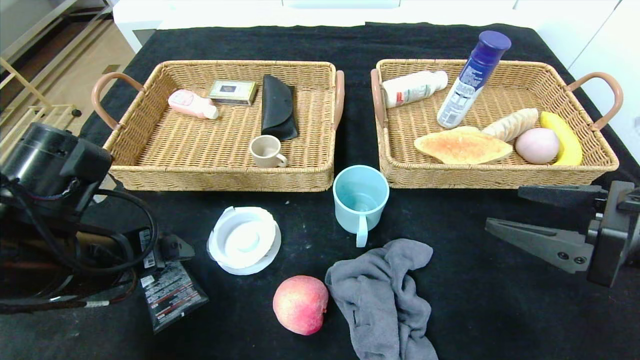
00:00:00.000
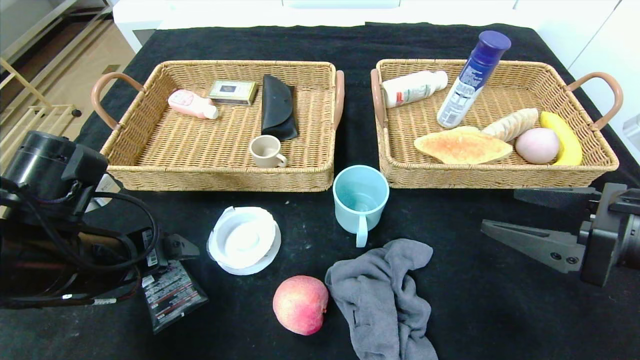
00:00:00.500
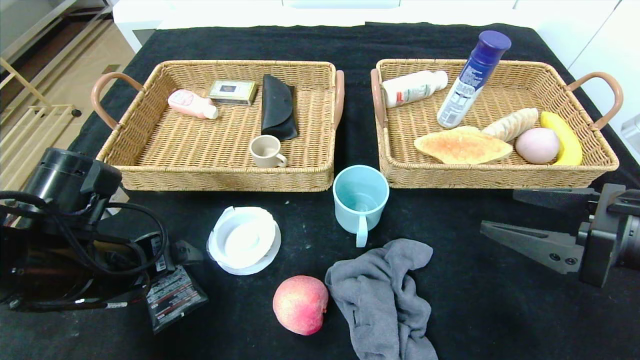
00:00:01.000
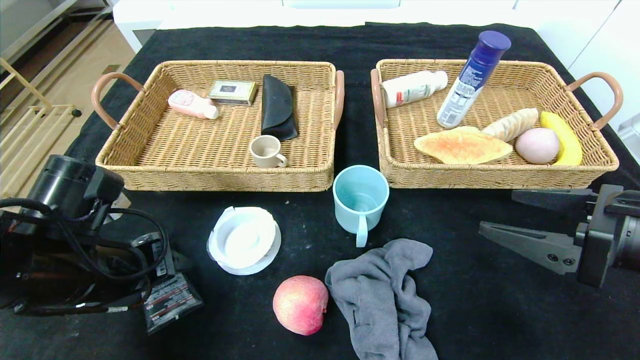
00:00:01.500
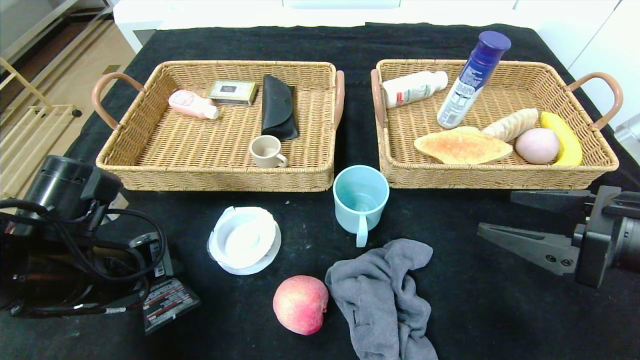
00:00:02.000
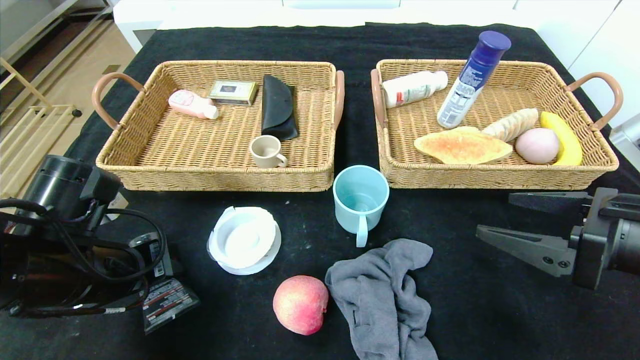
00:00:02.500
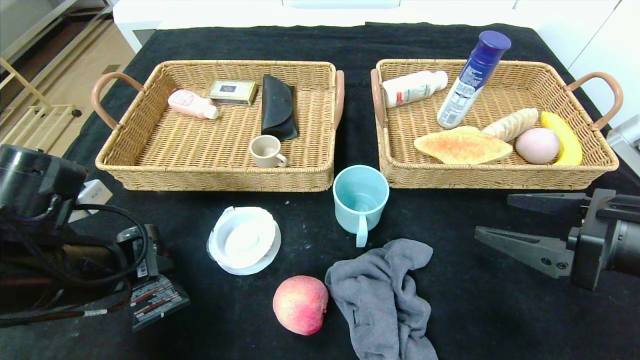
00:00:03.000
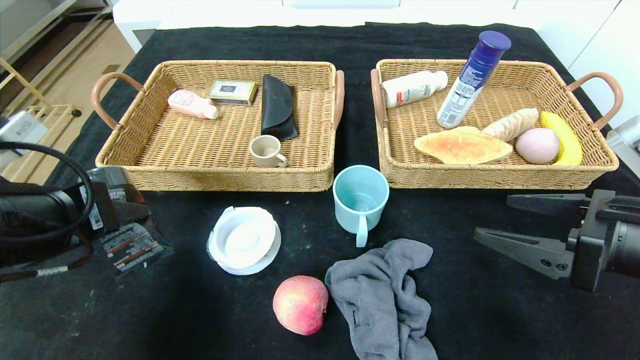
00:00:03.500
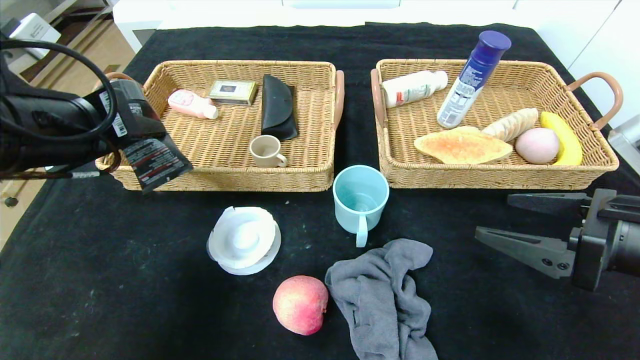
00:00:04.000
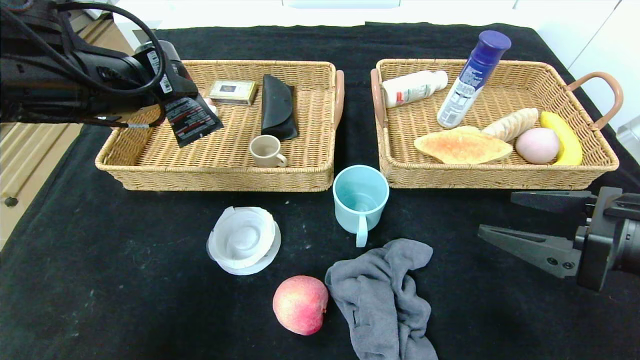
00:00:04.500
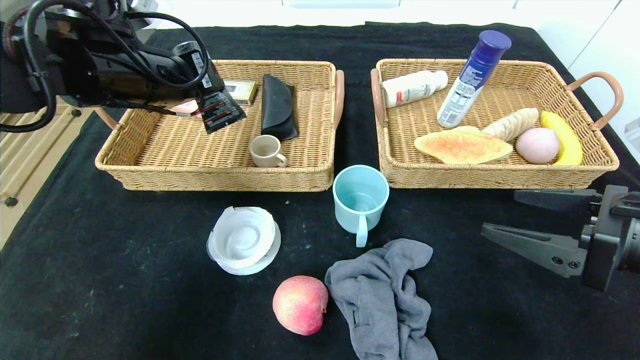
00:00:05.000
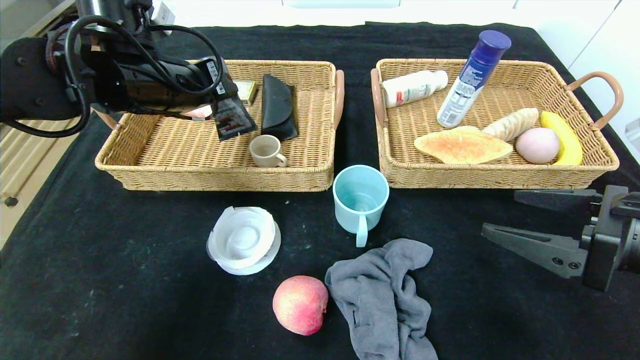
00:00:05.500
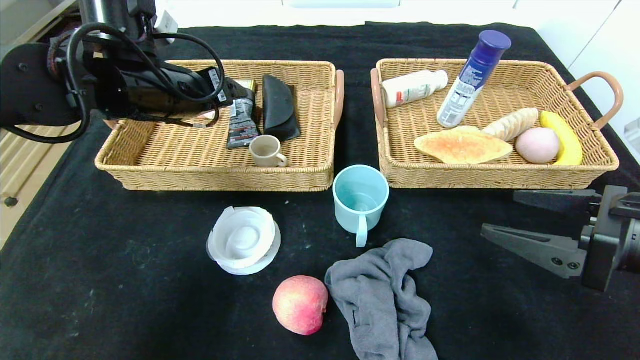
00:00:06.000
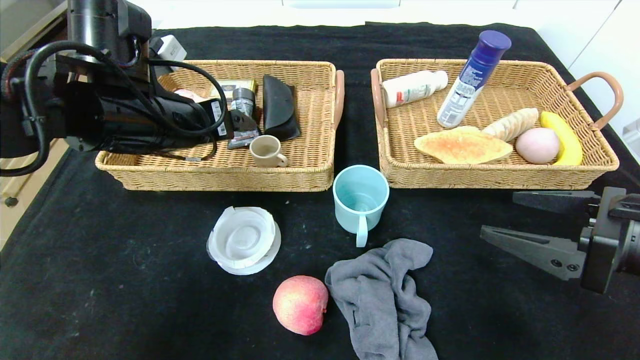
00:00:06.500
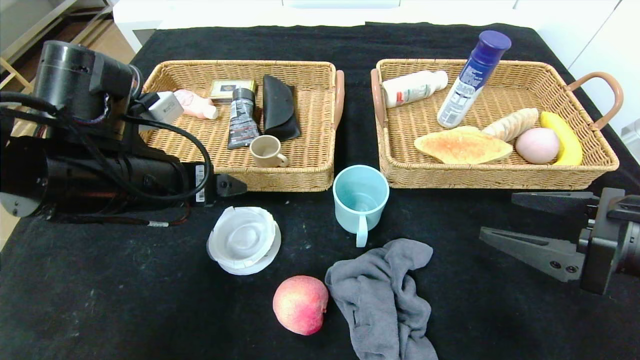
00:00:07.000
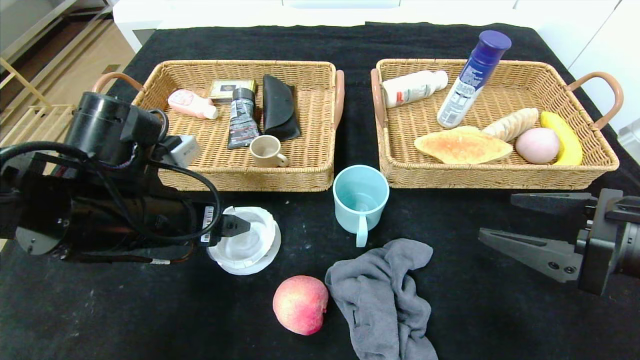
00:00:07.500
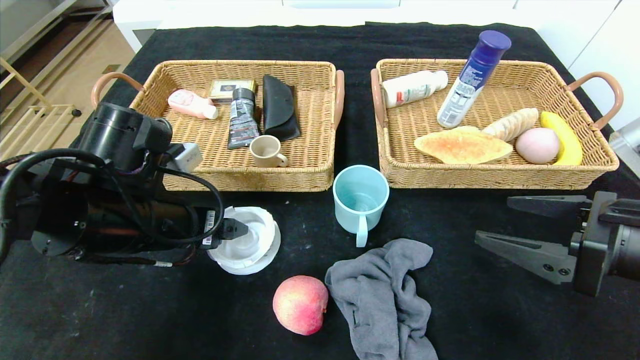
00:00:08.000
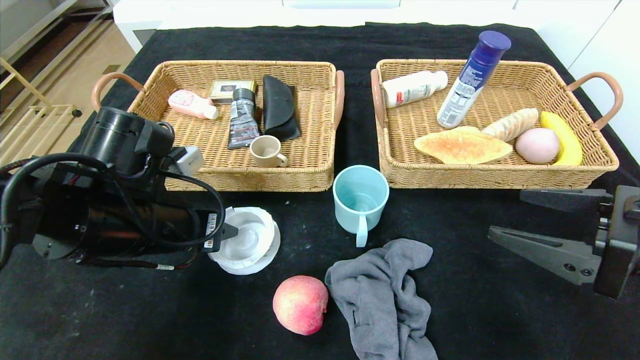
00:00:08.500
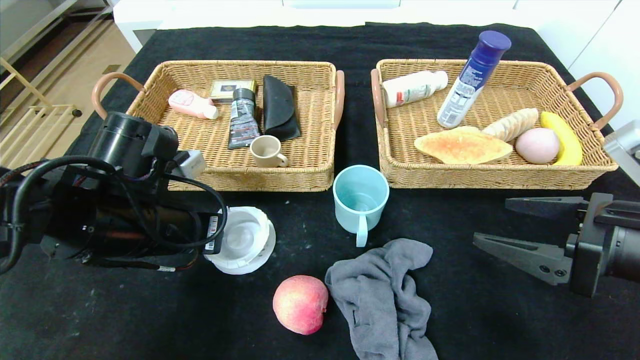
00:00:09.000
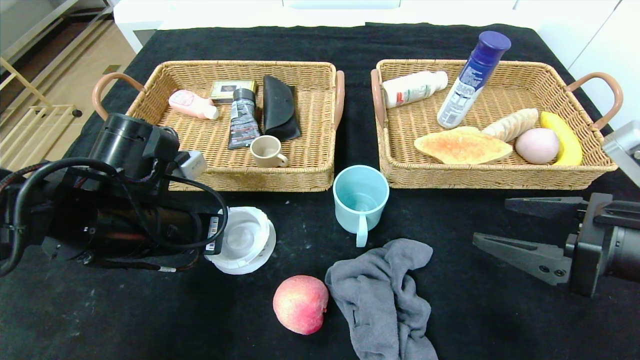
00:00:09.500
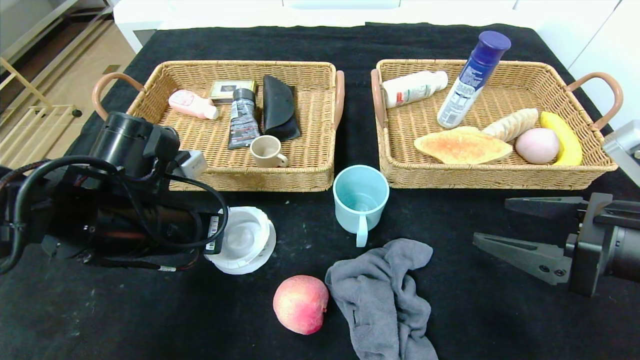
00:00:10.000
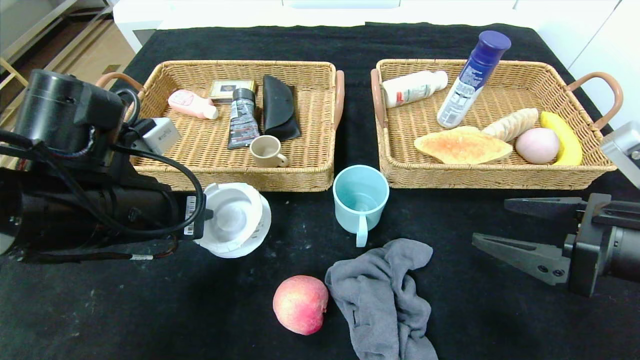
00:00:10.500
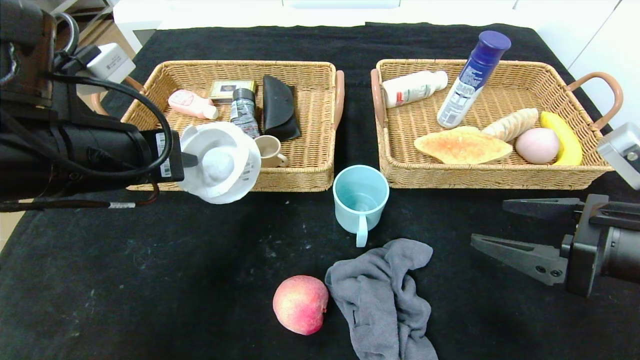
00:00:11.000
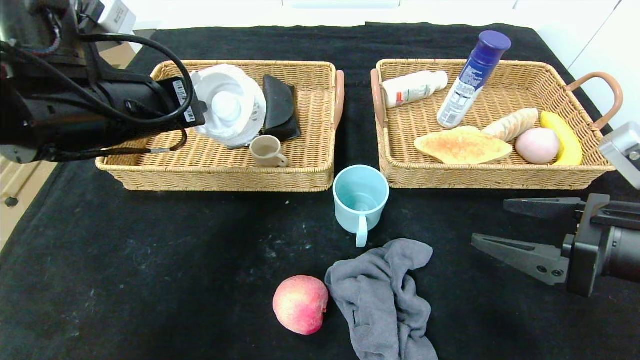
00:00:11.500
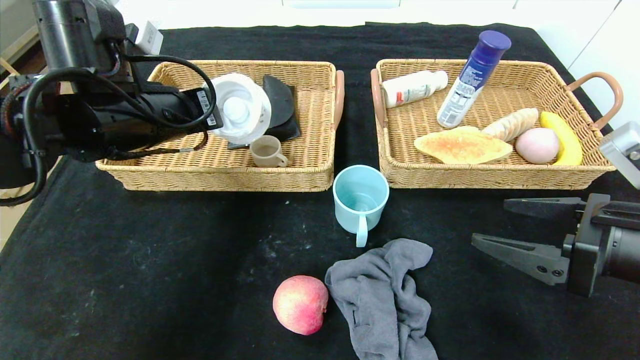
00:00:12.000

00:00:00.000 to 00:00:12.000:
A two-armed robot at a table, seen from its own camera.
Step, 00:00:00.000 to 00:00:05.500: Grasp the soft cleanser and put it in the left basket.
00:00:00.000 to 00:00:02.000: The left gripper closes.
00:00:02.000 to 00:00:04.000: The left gripper heads upward, covering roughly 15 cm.
00:00:04.000 to 00:00:06.000: The left gripper moves forward, approximately 15 cm, and opens.
00:00:06.000 to 00:00:08.000: The left gripper goes approximately 15 cm backward and downward.
00:00:08.000 to 00:00:10.000: The left gripper closes up.
00:00:10.000 to 00:00:12.000: The left gripper moves upward and forward, some 10 cm.

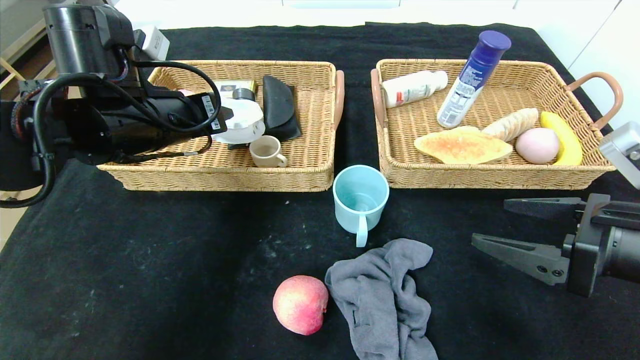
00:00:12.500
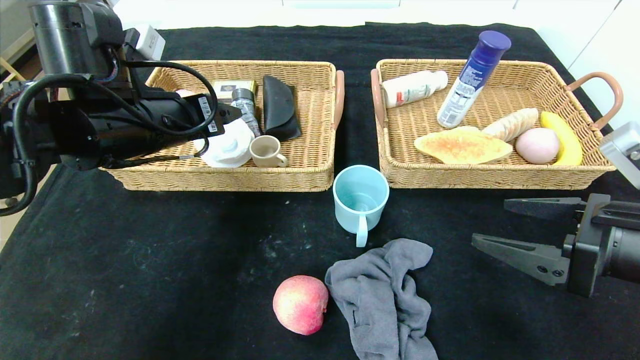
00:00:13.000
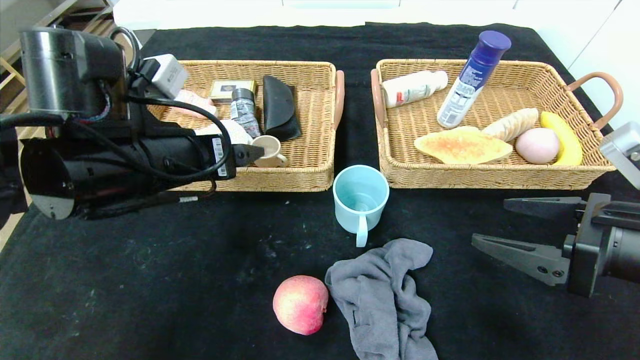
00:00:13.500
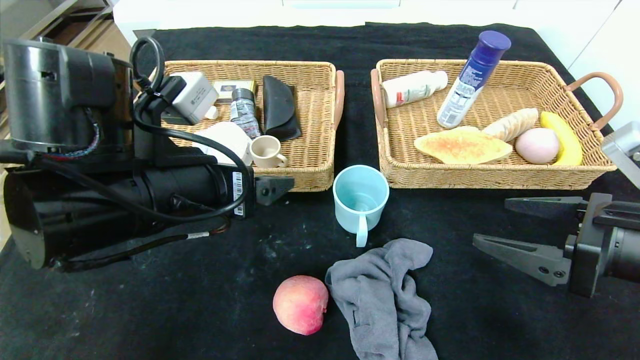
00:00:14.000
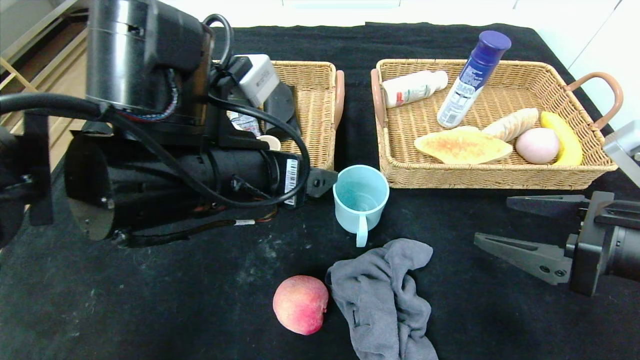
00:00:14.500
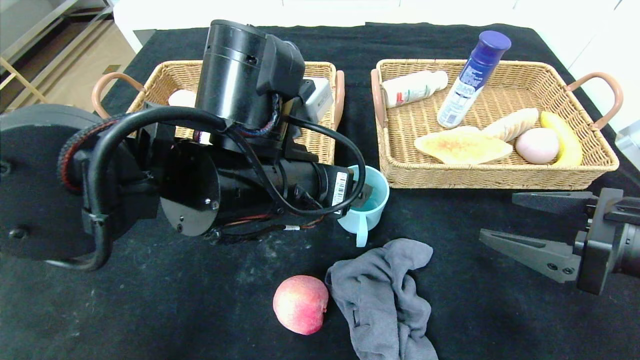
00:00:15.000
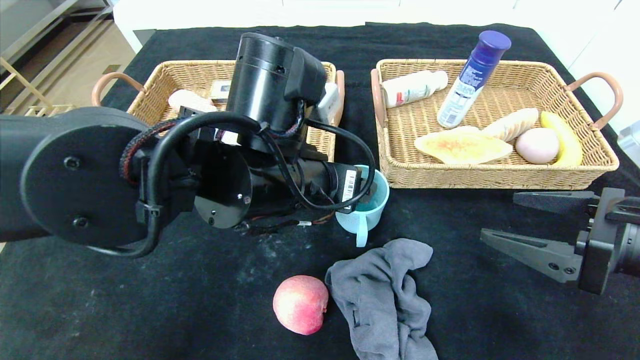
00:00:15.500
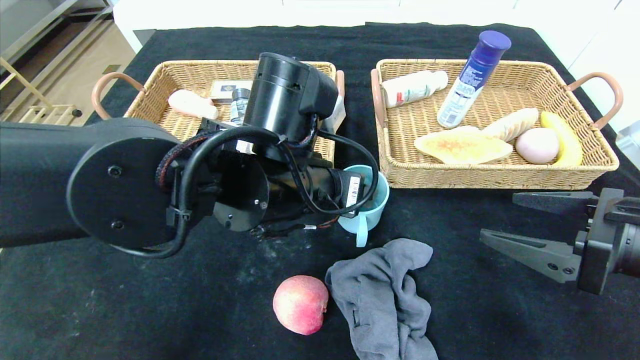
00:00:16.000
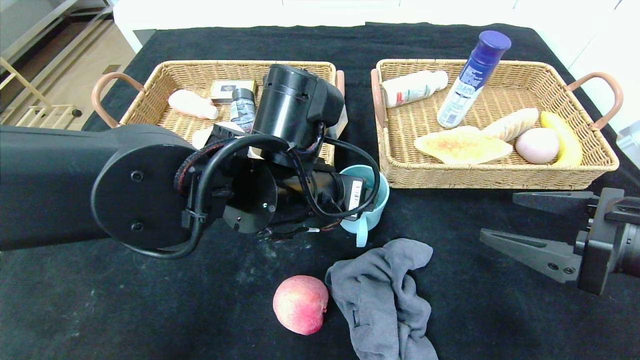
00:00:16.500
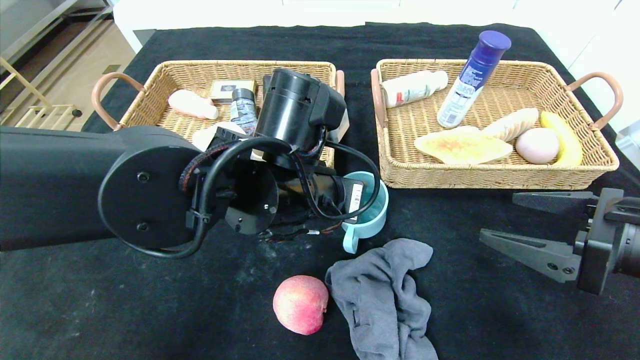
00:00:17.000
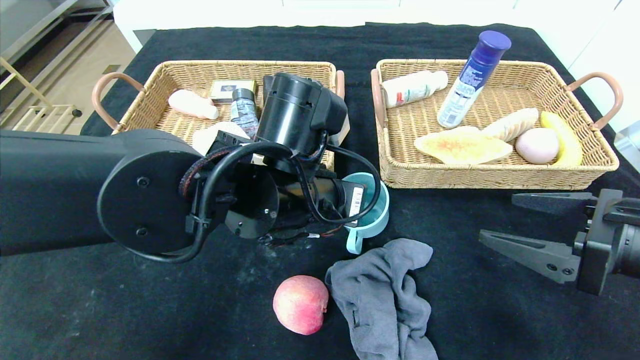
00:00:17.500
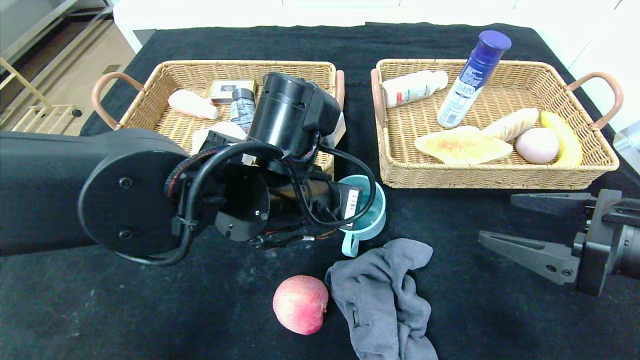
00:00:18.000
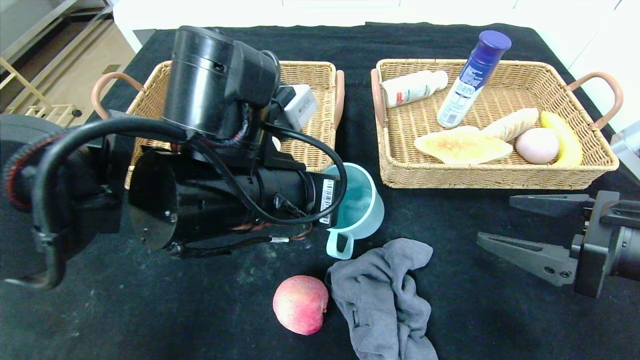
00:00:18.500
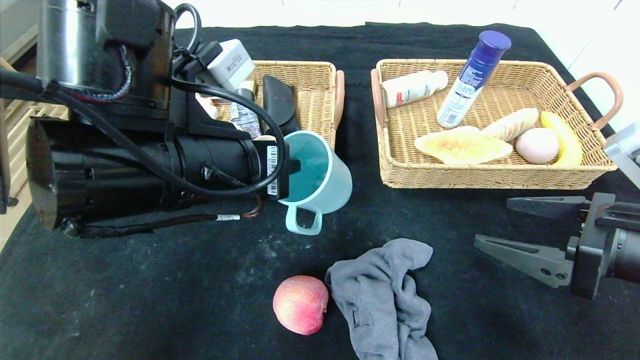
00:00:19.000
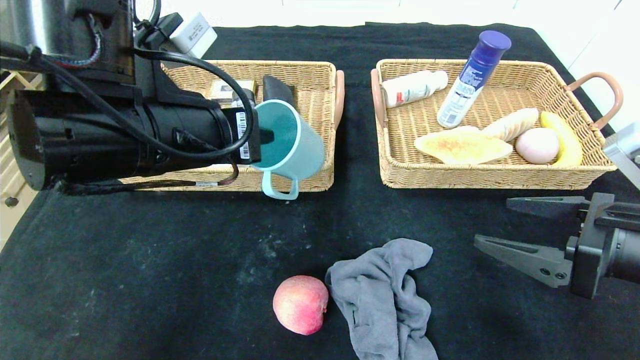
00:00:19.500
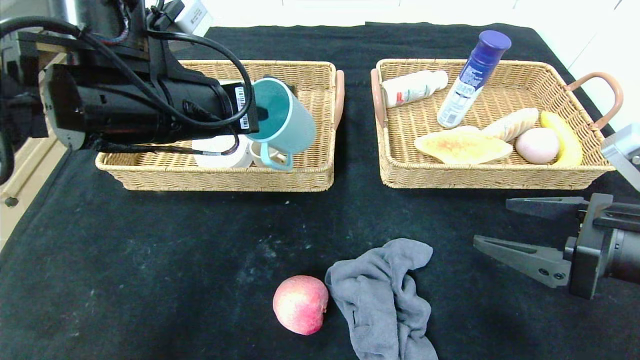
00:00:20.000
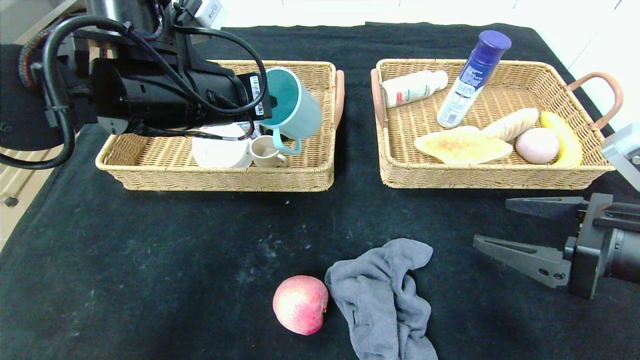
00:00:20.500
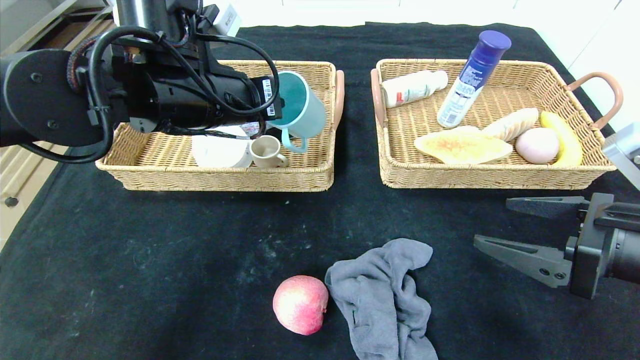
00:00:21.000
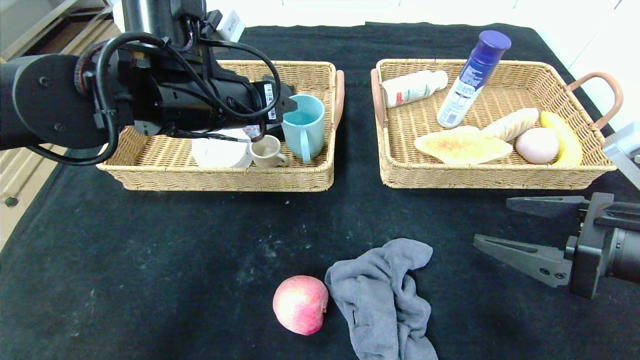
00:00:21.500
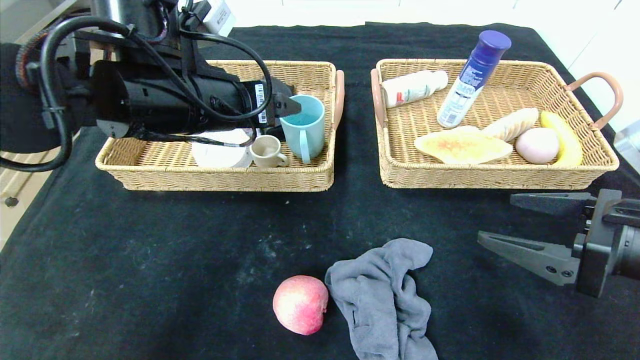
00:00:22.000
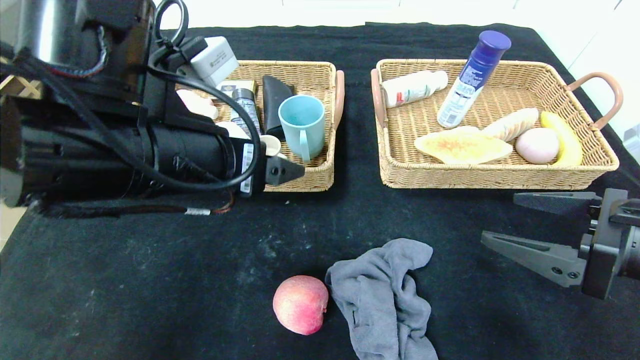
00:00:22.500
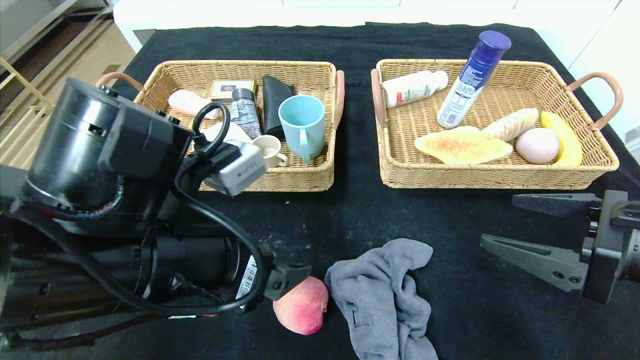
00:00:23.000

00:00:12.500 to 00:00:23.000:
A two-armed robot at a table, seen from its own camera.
Step, 00:00:13.000 to 00:00:21.500: Grasp the blue cup and put it in the left basket.
00:00:12.500 to 00:00:14.500: The left gripper shifts roughly 15 cm to the right and backward, and opens its fingers.
00:00:14.500 to 00:00:16.500: The left gripper moves to the right, approximately 5 cm.
00:00:16.500 to 00:00:19.000: The left gripper moves to the left, some 10 cm, and closes its fingers.
00:00:19.000 to 00:00:21.000: The left gripper travels forward by approximately 10 cm.
00:00:21.000 to 00:00:23.000: The left gripper shifts approximately 15 cm backward and downward, and opens.
